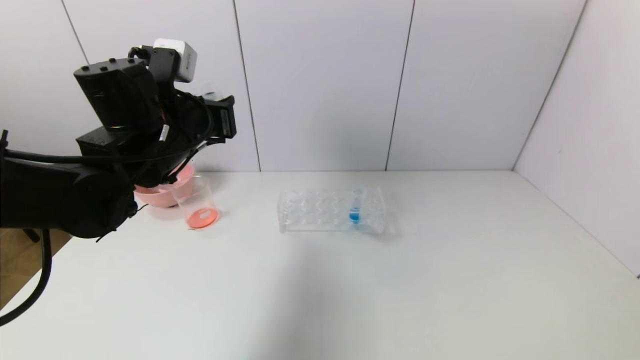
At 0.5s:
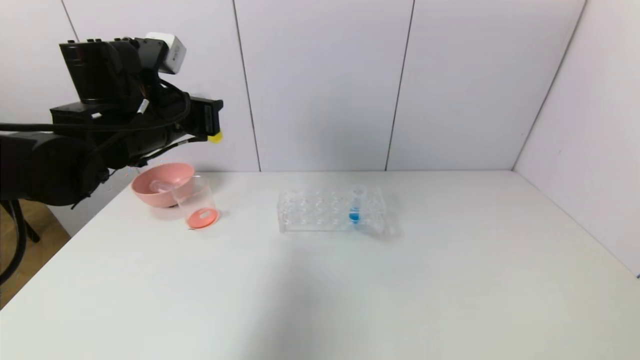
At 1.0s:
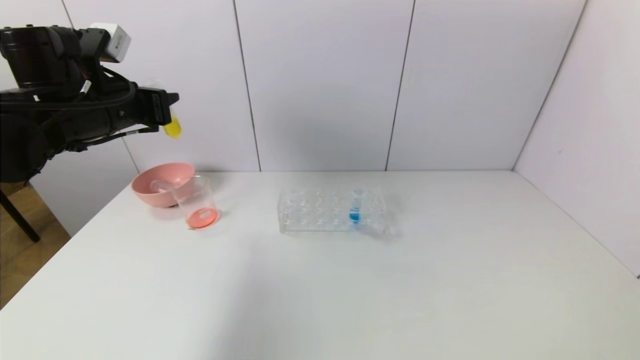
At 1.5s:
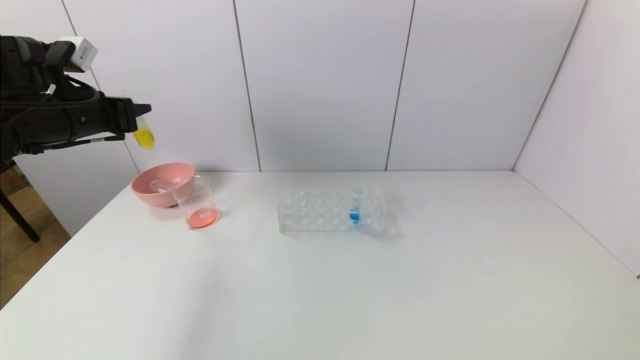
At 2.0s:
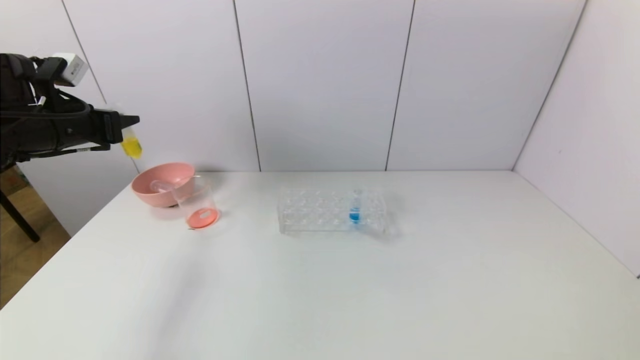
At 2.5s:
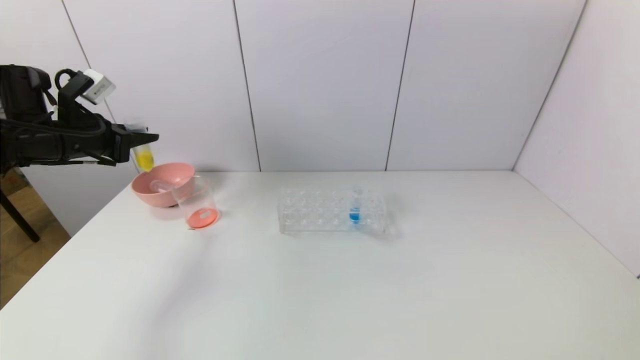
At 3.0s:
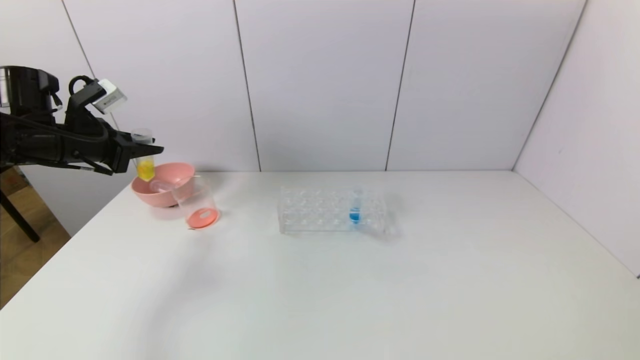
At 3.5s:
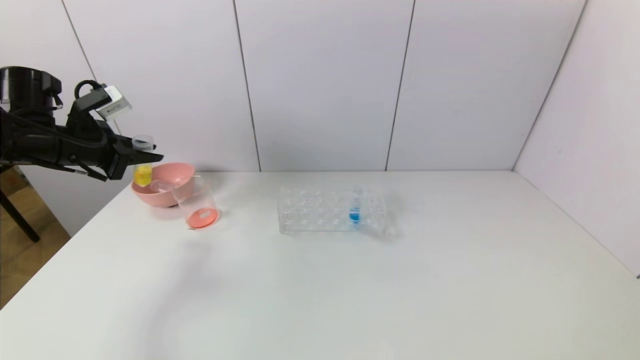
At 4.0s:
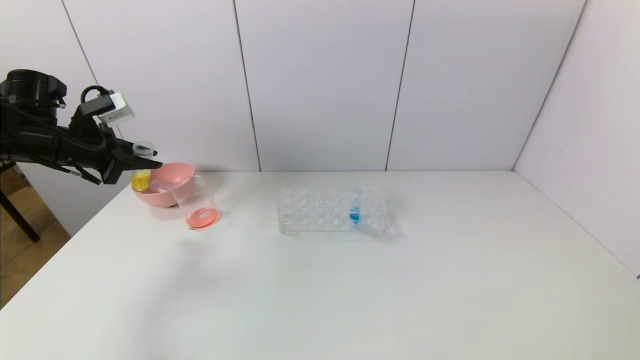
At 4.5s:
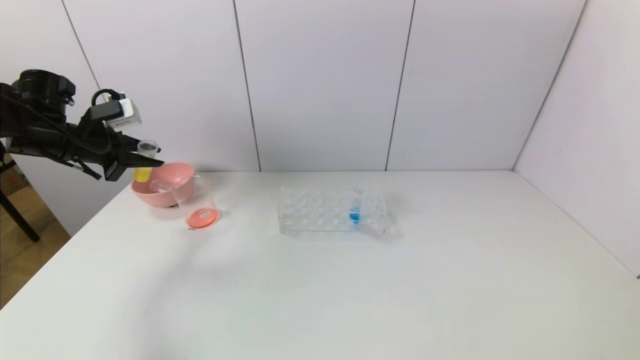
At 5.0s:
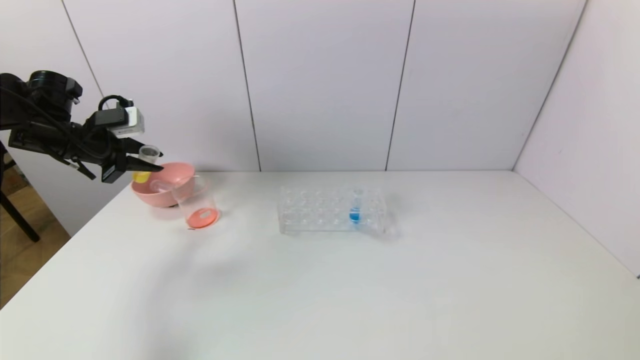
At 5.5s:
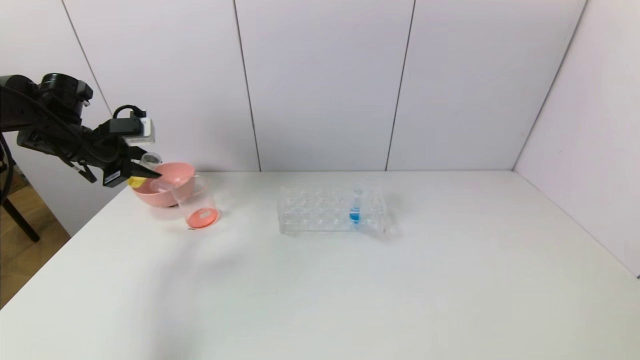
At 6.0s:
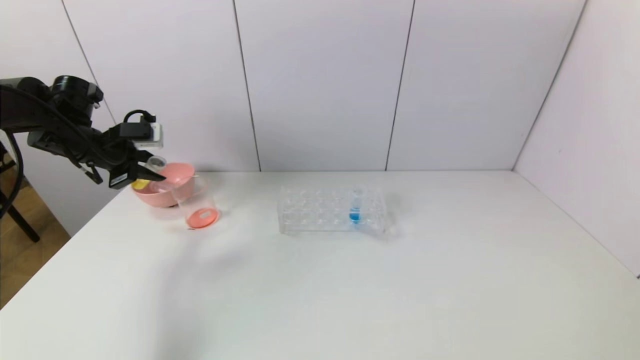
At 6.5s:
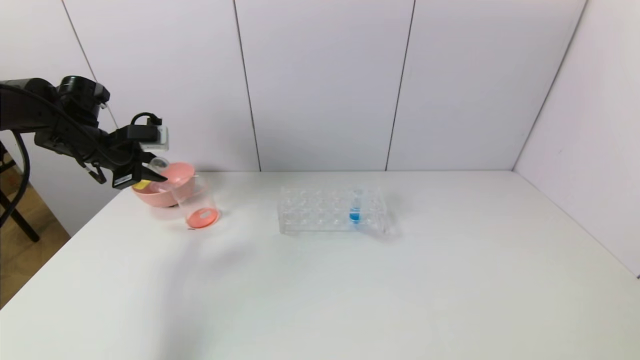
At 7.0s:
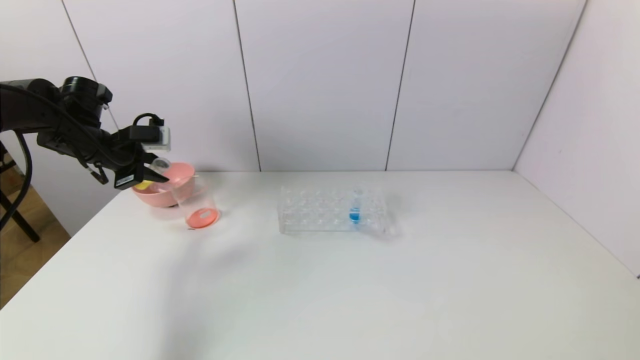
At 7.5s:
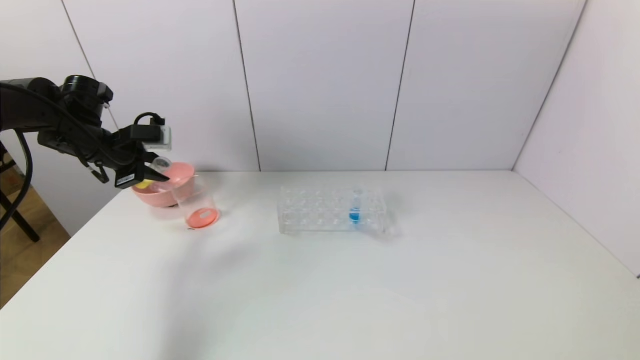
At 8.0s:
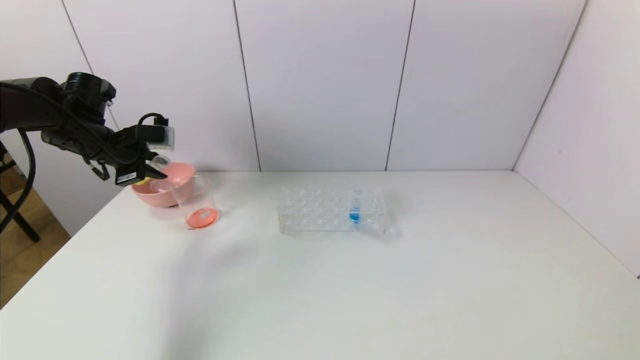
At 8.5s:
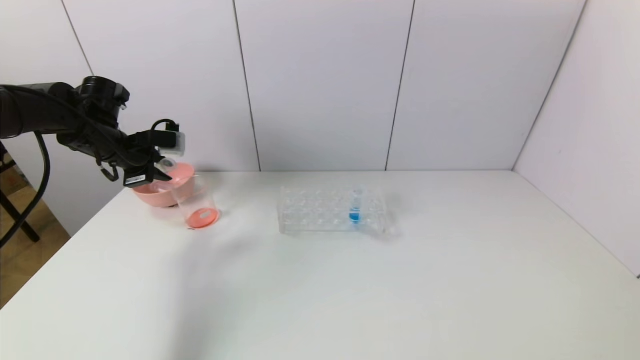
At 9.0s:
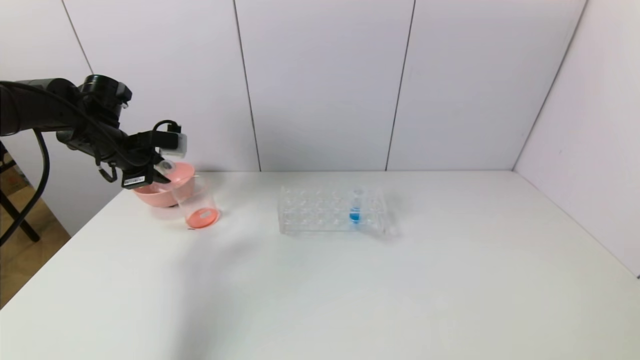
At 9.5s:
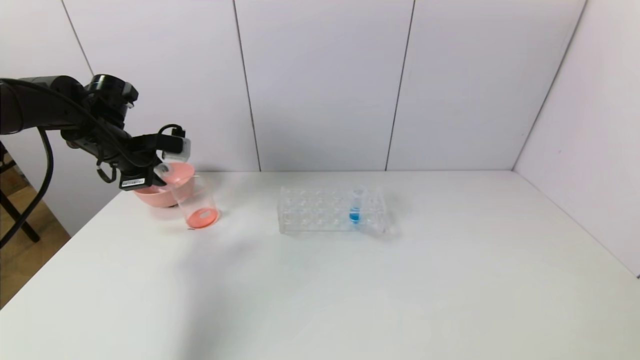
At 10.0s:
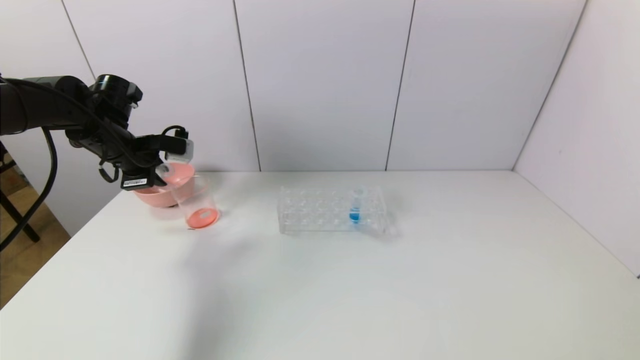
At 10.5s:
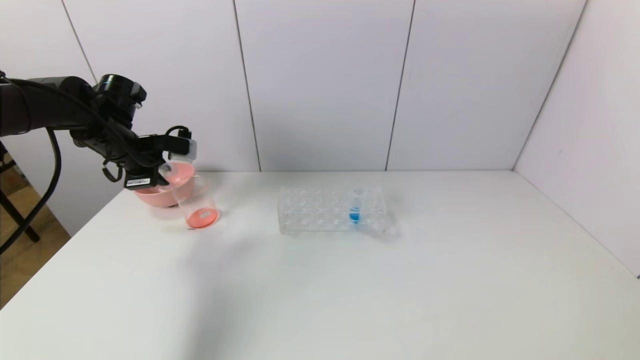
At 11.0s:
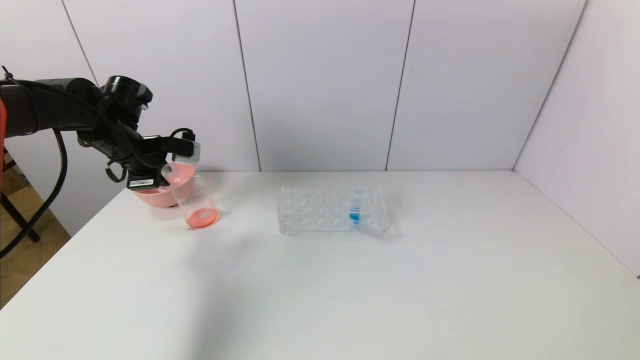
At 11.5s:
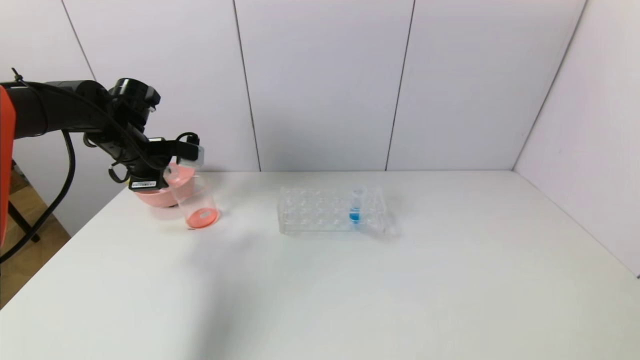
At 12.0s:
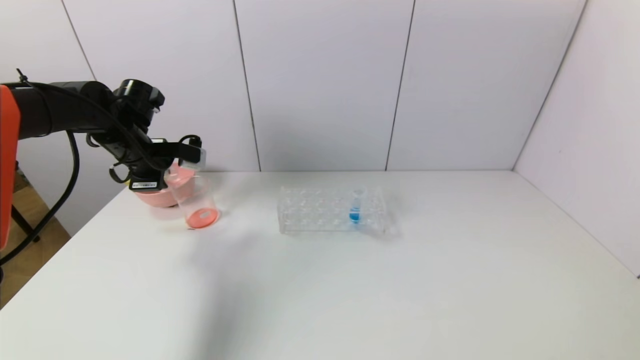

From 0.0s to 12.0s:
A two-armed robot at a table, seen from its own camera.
Task of the whole recording: pick up the test tube with yellow pigment and the test tube with red pigment by grippers and pour them into the beaker.
From 0.0s to 2.0s: The left gripper heads to the left, covering roughly 20 cm.
From 6.0s to 8.0s: There are only small adjustments of the grippers.
From 8.0s to 10.0s: There are only small adjustments of the grippers.
From 10.0s to 12.0s: The grippers stay close to where they were, moving slightly.

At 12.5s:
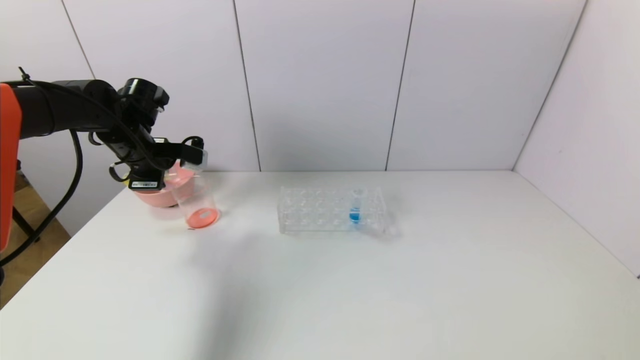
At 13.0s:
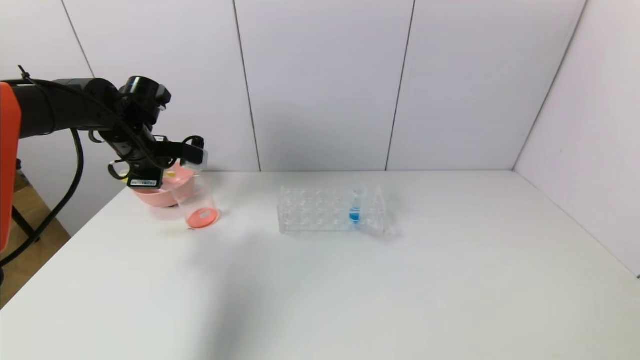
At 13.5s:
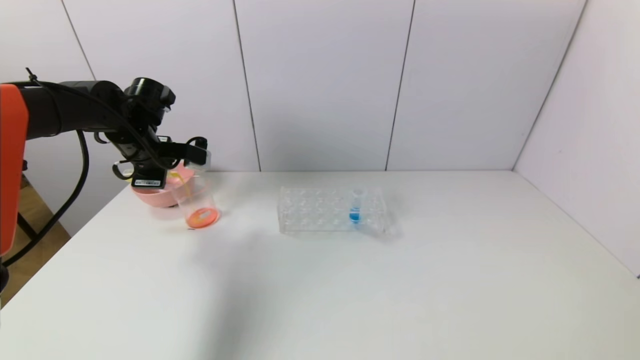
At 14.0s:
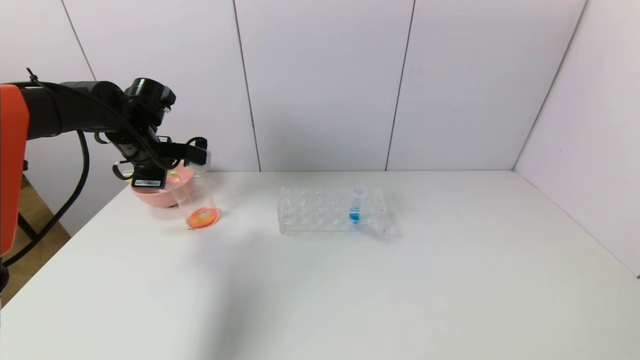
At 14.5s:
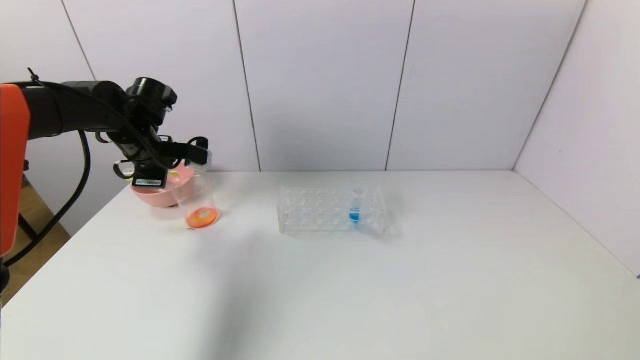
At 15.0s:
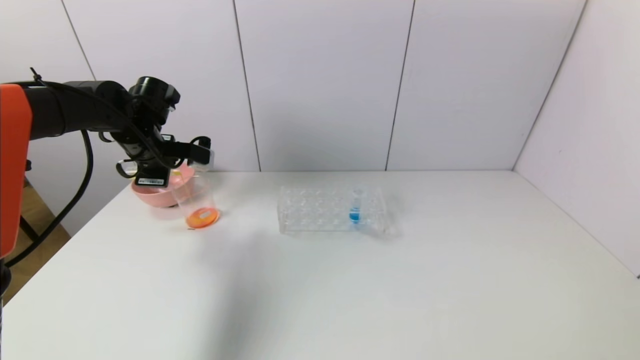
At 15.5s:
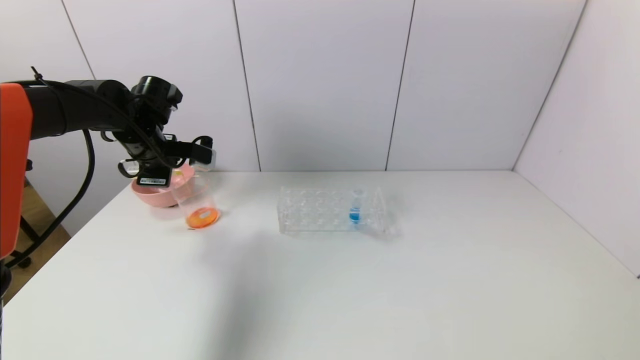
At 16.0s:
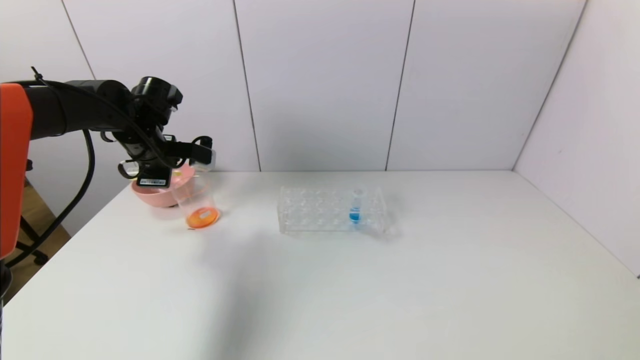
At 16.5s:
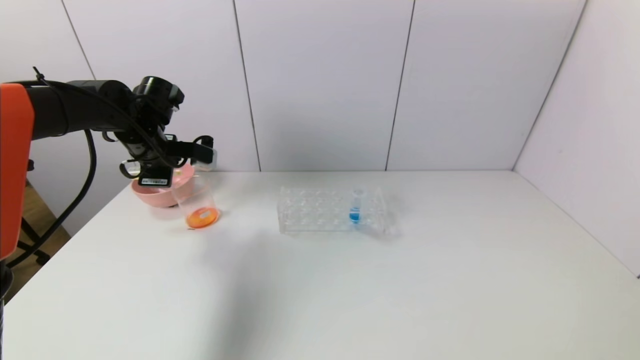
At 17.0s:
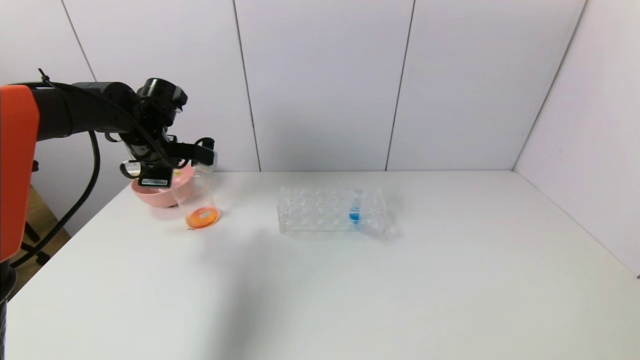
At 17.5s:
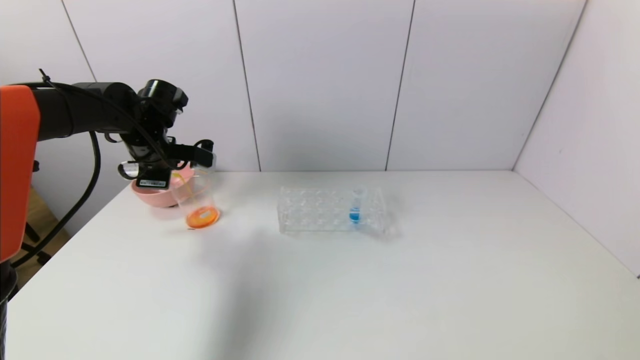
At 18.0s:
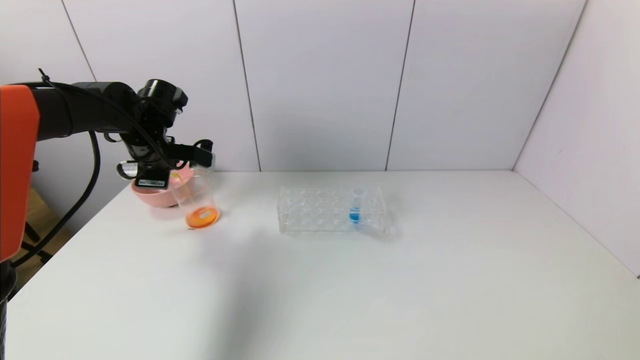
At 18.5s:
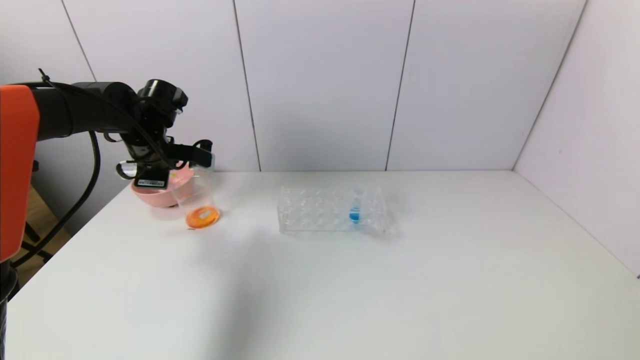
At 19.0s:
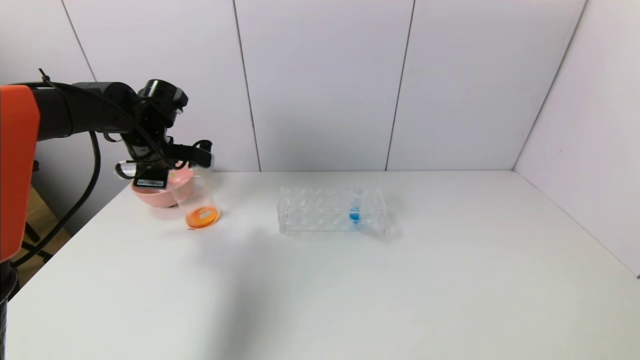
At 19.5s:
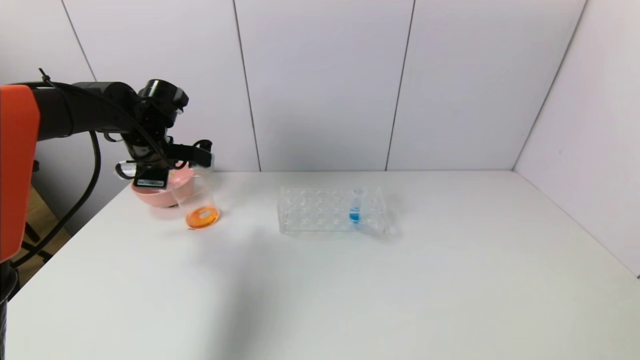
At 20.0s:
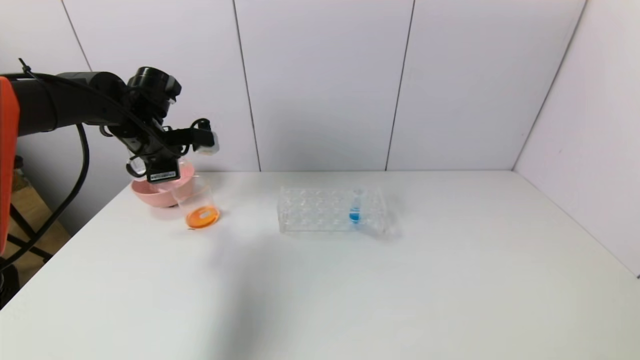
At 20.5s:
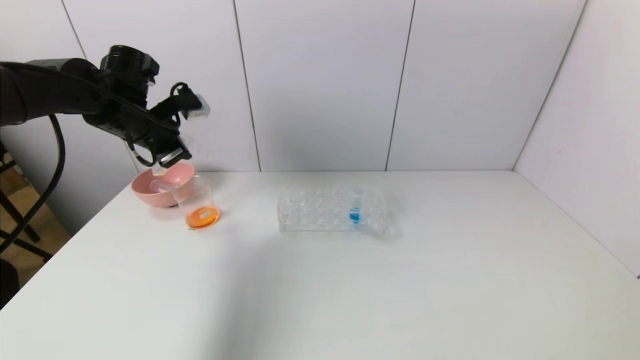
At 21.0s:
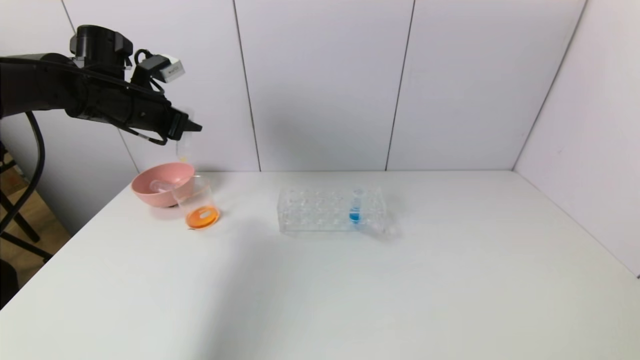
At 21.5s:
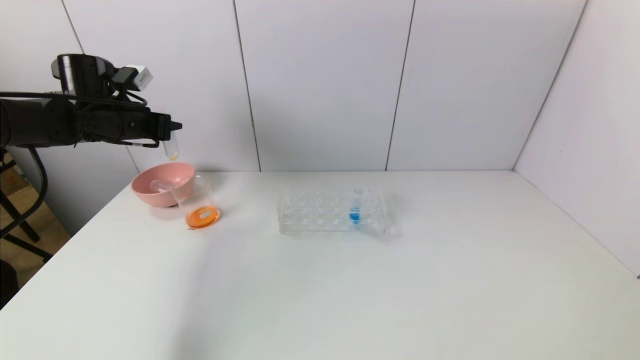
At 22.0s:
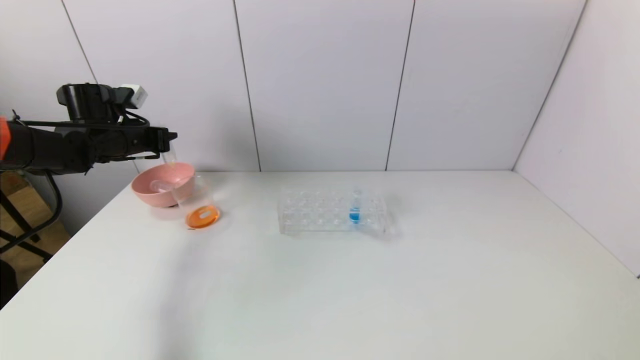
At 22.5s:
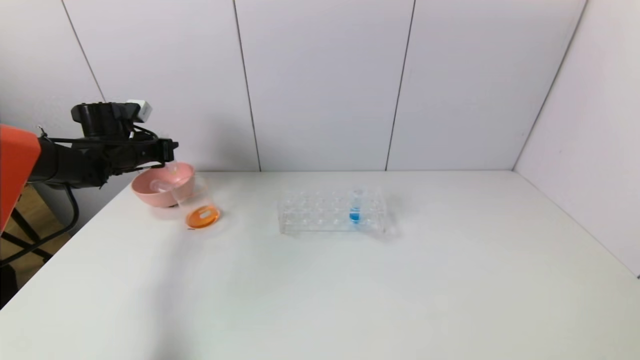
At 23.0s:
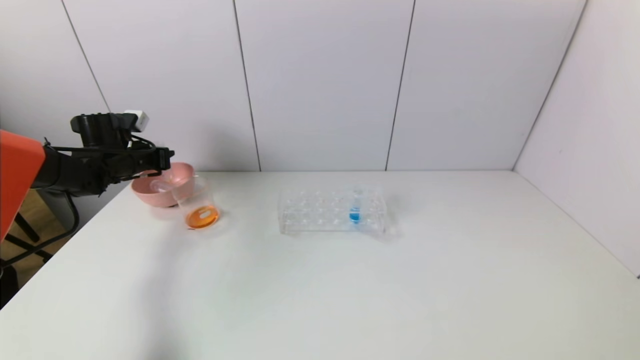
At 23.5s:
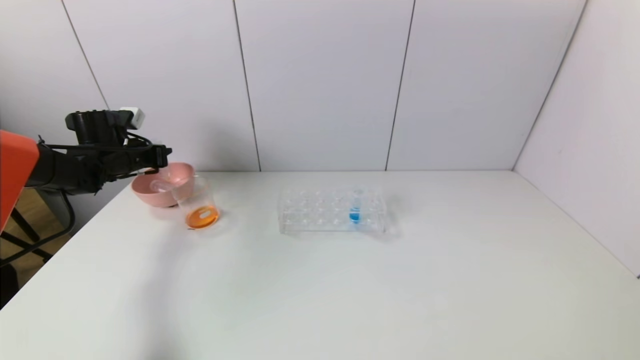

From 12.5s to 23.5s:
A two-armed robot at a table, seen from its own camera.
Task of the whole recording: pick up the test tube with yellow pigment and the test tube with red pigment by grippers and pour them into the beaker.
Step, from 12.5s to 19.5s: Pour the yellow reagent into the graduated cylinder with the left gripper.
From 12.5s to 14.5s: Both grippers stay about where they are.
From 14.5s to 16.0s: Neither gripper changes place.
From 16.0s to 20.0s: The grippers stay close to where they were, moving slightly.
From 20.0s to 21.5s: The left gripper is displaced to the left by approximately 5 cm.
From 21.5s to 23.5s: The left gripper shifts roughly 10 cm downward.
